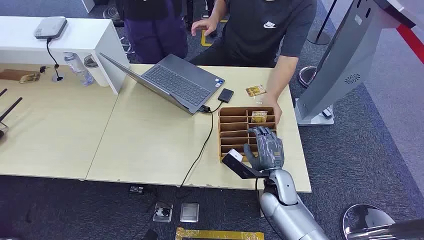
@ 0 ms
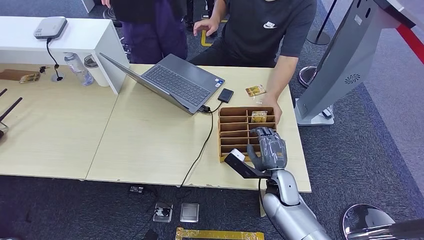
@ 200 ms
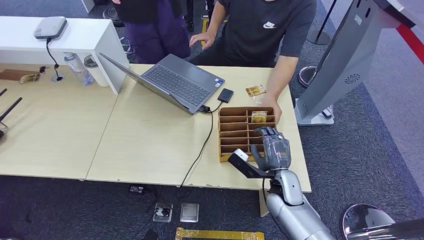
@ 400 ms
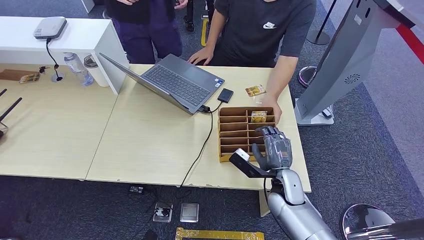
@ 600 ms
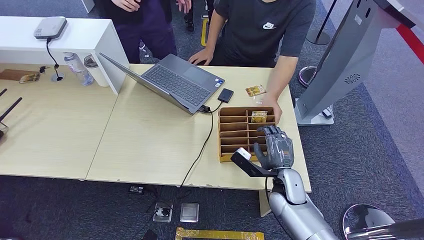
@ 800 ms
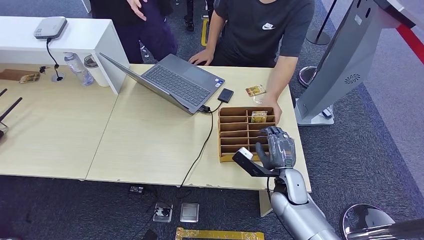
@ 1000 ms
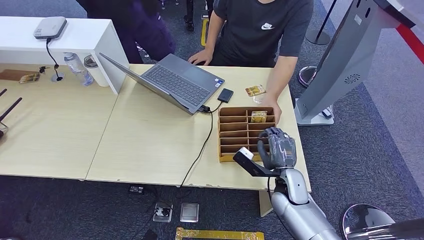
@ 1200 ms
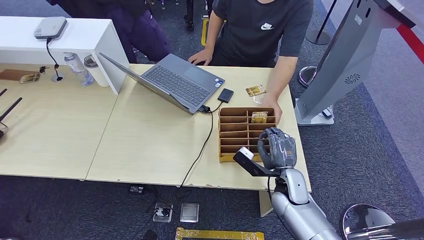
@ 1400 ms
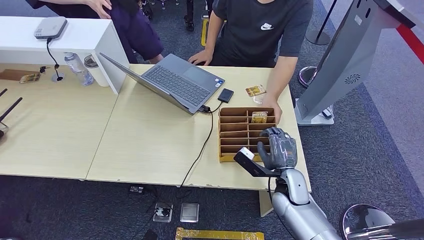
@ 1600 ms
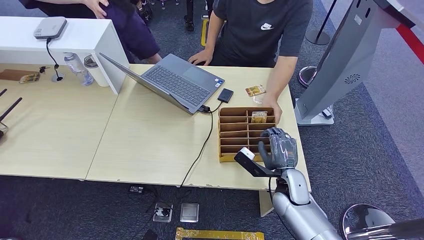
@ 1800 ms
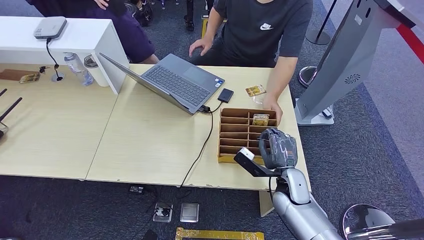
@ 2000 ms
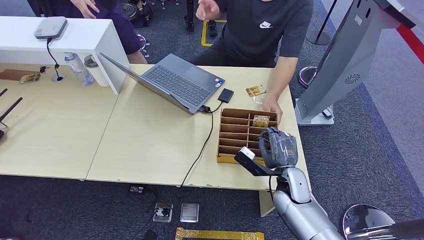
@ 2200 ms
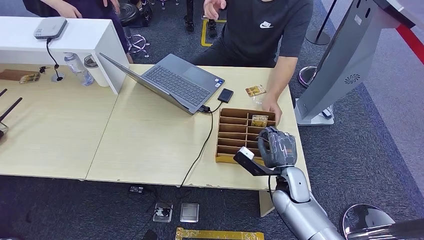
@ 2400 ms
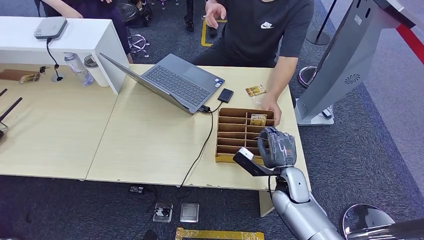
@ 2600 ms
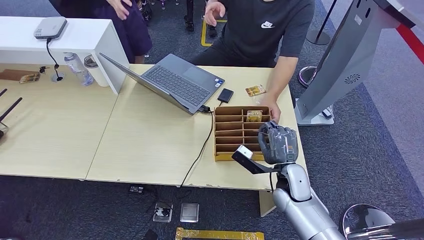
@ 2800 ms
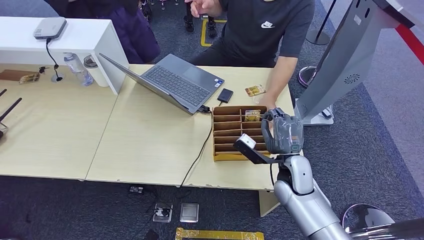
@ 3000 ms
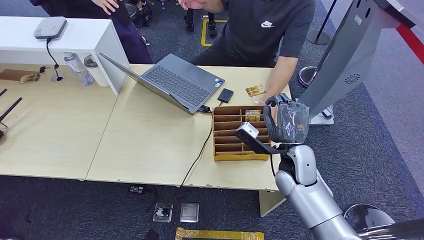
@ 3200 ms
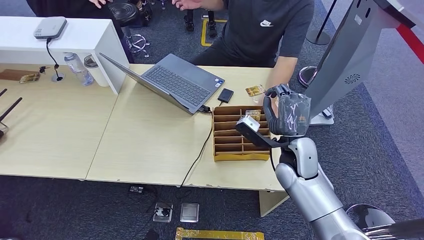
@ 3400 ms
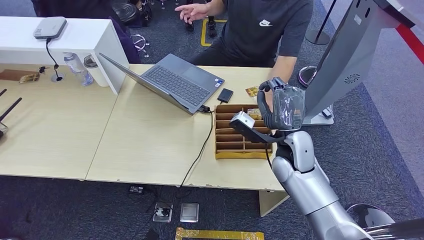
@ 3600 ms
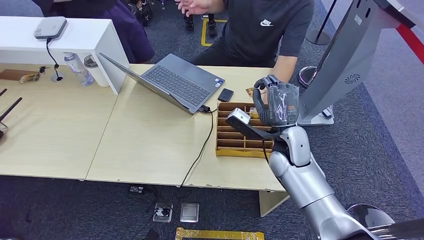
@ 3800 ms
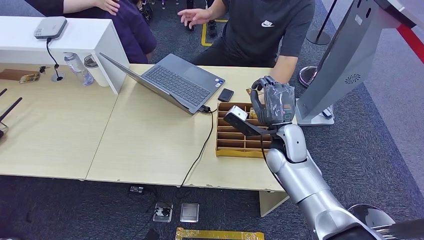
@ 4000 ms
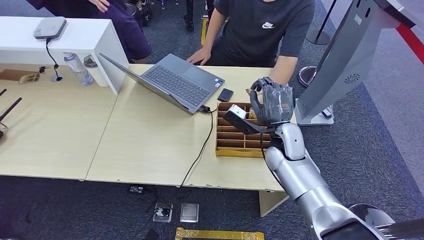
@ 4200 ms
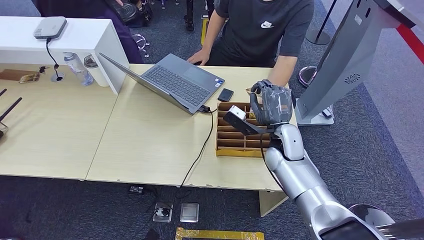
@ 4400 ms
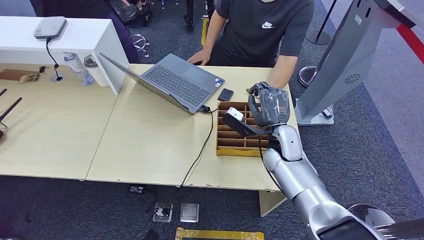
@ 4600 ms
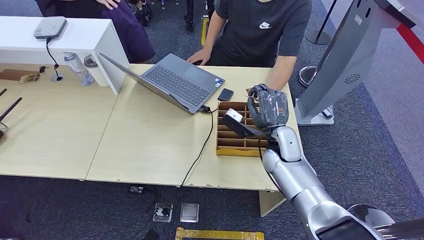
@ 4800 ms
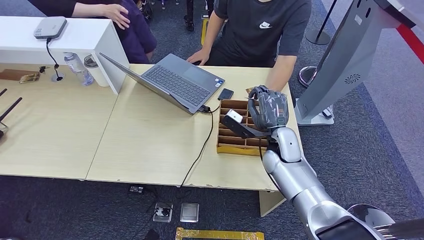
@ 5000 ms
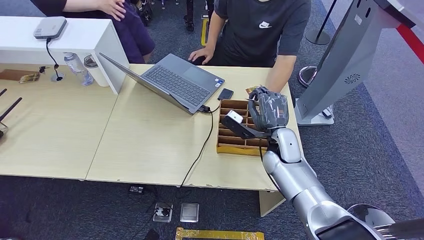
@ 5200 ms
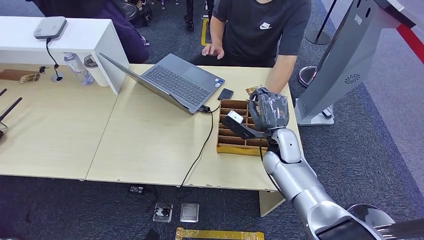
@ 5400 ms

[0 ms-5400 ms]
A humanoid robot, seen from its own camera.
Step, 0 ms to 2600 ms: Pick up the room card from the card holder.
Step, 2800 ms to 5400 ms: Hand the room card to the target.
1400 ms to 2800 ms: The hands make only small movements.
2800 ms to 4000 ms: The right hand moves upward and forward, roughly 10 cm.
4000 ms to 5400 ms: The hands make only small movements.
